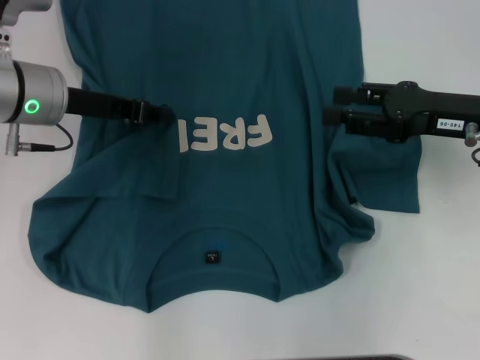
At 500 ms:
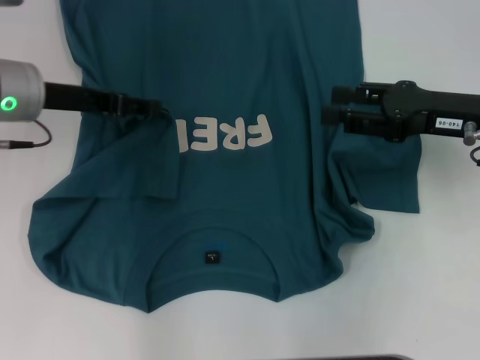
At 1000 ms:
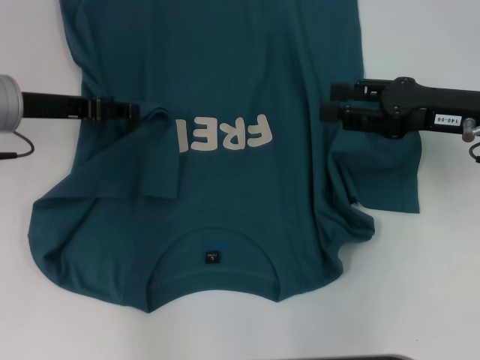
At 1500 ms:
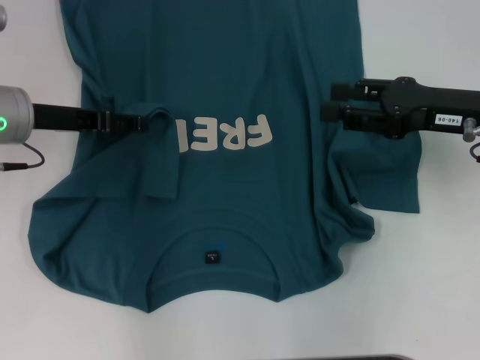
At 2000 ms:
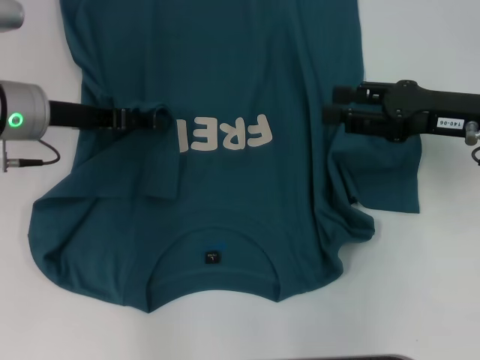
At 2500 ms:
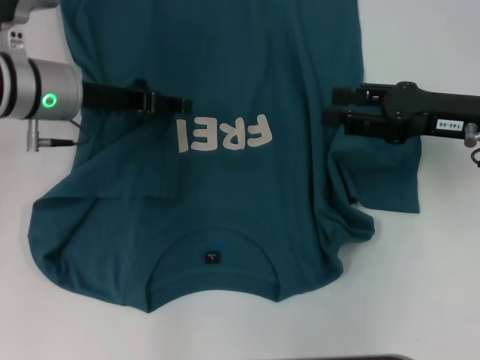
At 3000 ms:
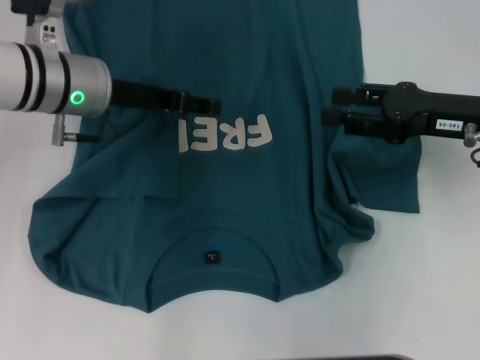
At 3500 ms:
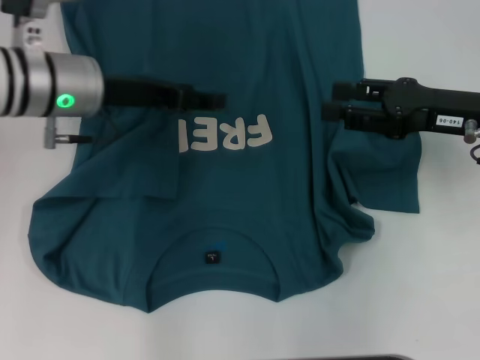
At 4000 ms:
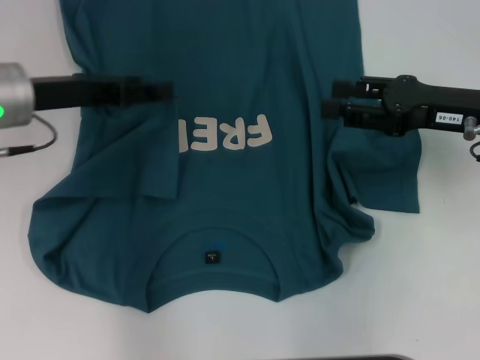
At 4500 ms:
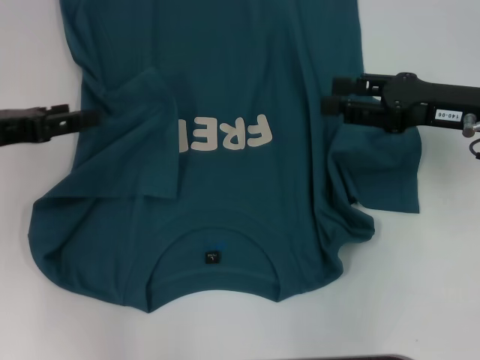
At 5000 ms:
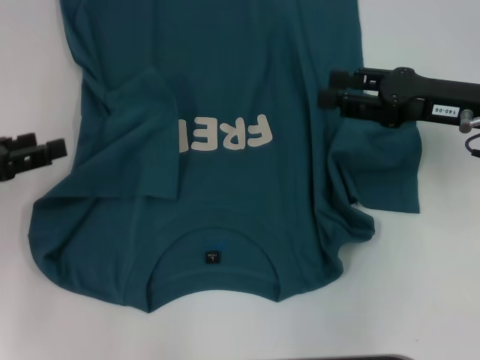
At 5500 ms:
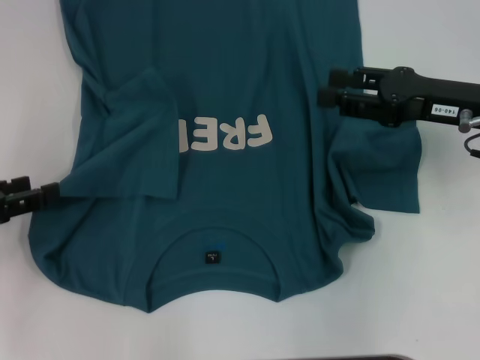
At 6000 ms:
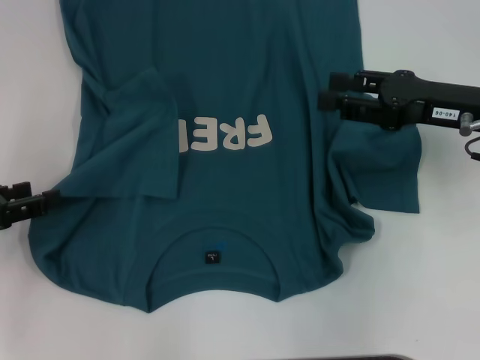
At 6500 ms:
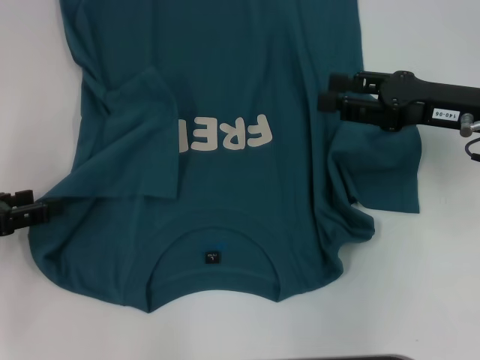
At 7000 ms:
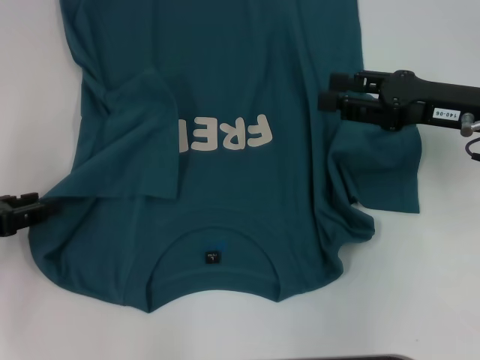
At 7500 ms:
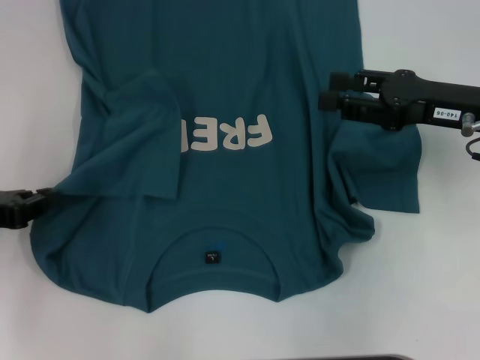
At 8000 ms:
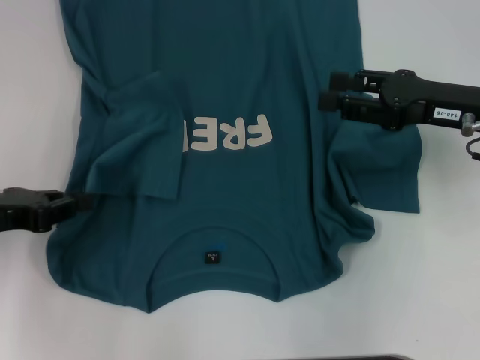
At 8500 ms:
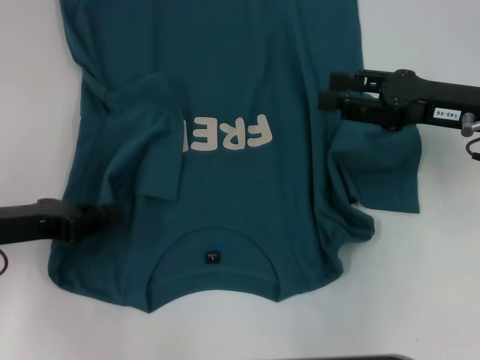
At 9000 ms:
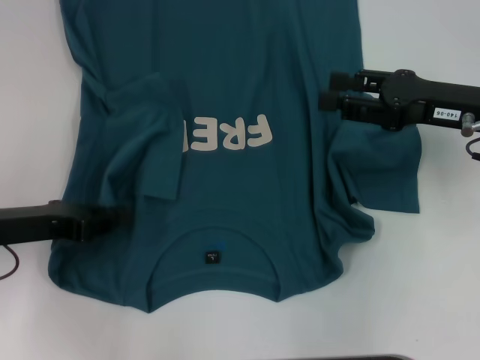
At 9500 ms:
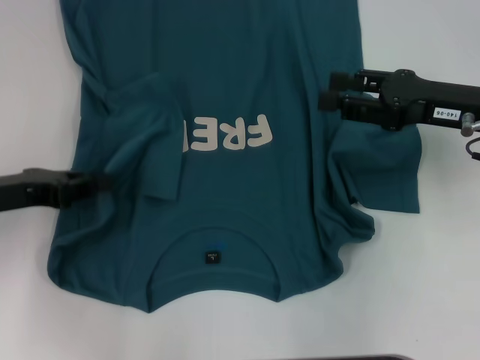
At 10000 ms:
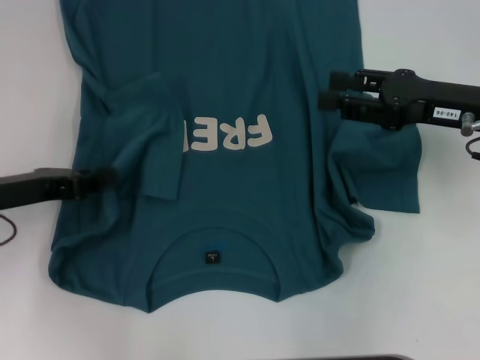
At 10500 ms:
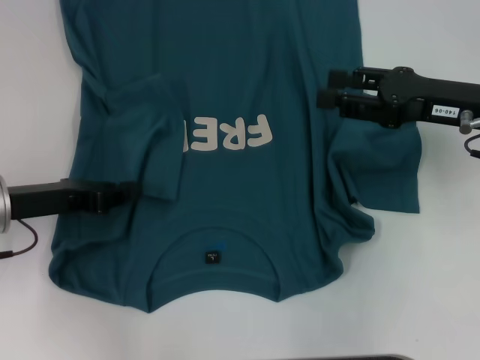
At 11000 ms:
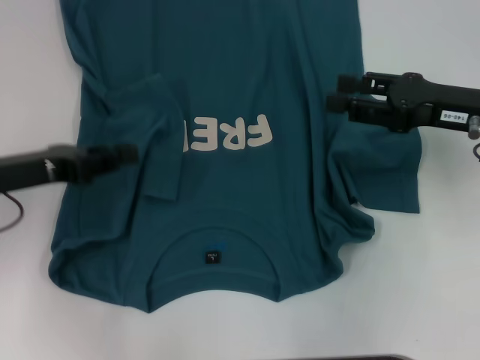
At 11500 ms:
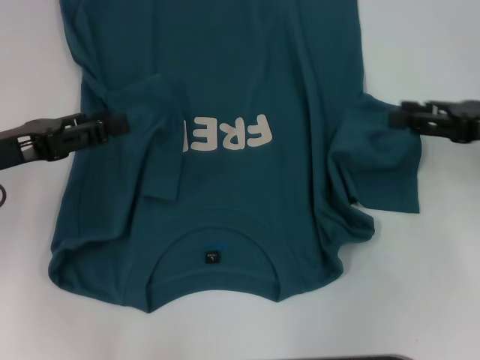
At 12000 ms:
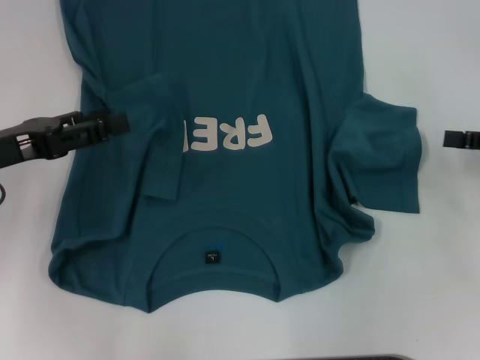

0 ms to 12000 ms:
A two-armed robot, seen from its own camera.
Step, 0 ms to 10500 ms: Fold the bottom left sleeve with your left hand.
0 ms to 2000 ms: The left gripper opens its fingers.
4000 ms to 6000 ms: The left gripper travels backward and to the left by approximately 15 cm.
6000 ms to 8000 ms: The left gripper closes.
8000 ms to 10000 ms: The grippers stay close to where they were, moving slightly.
10000 ms to 12000 ms: The right gripper goes some 10 cm to the right. Meanwhile the left gripper opens its fingers.

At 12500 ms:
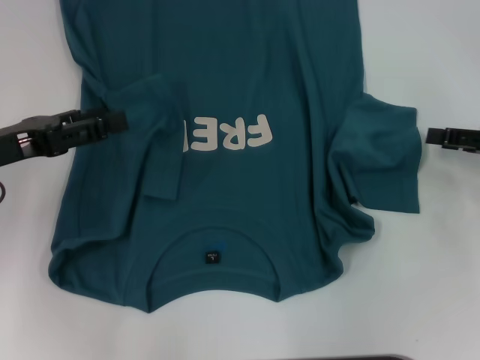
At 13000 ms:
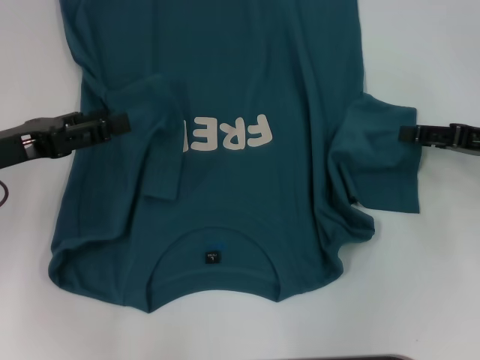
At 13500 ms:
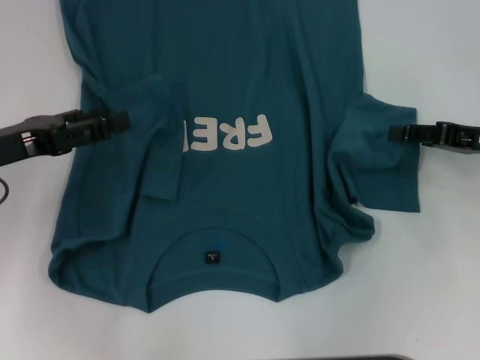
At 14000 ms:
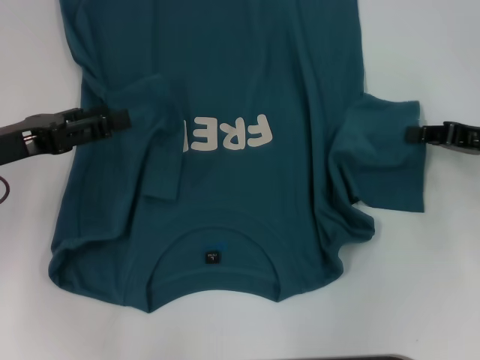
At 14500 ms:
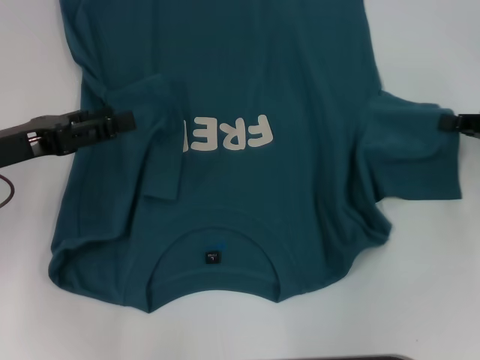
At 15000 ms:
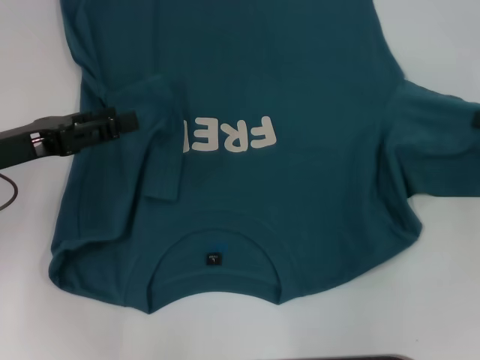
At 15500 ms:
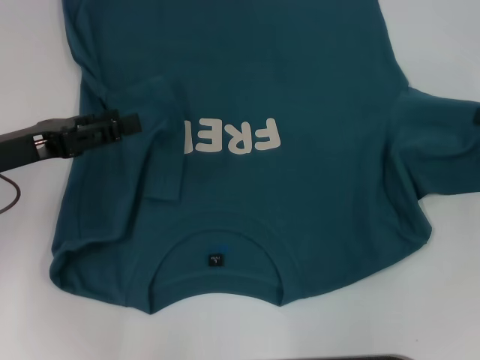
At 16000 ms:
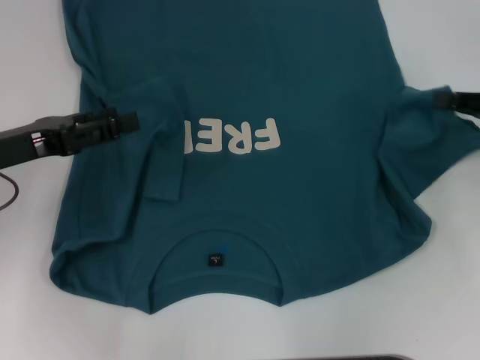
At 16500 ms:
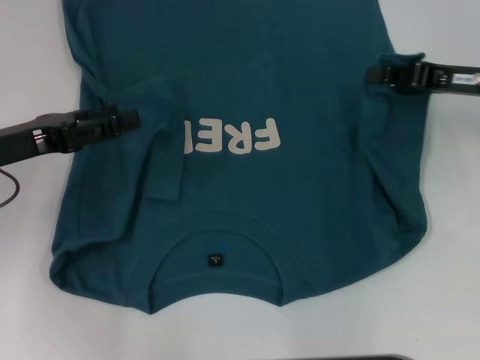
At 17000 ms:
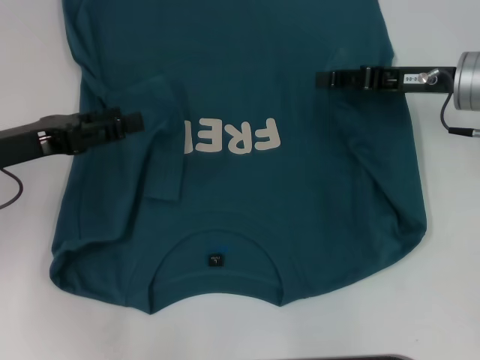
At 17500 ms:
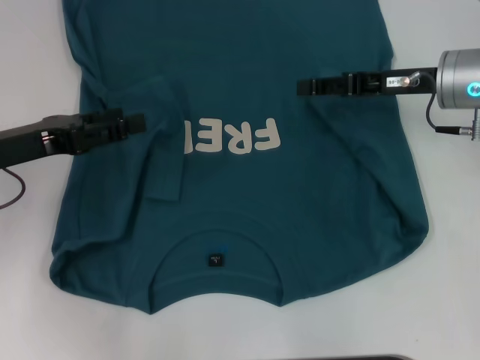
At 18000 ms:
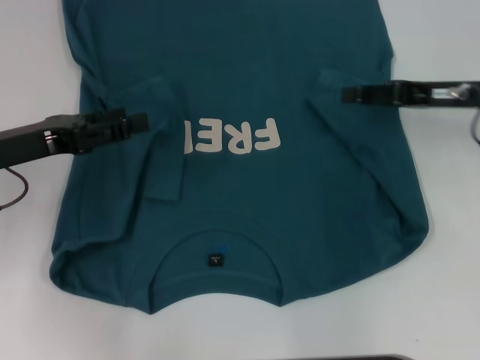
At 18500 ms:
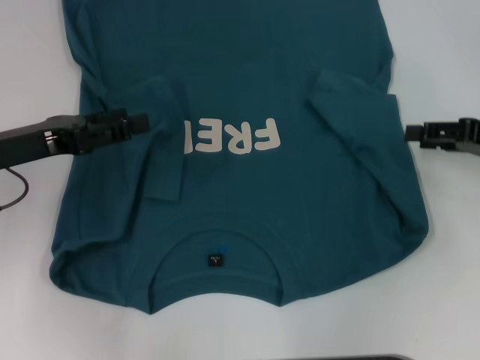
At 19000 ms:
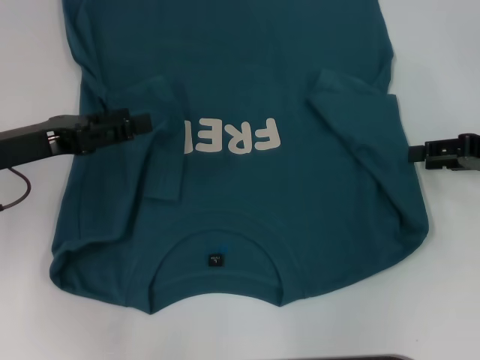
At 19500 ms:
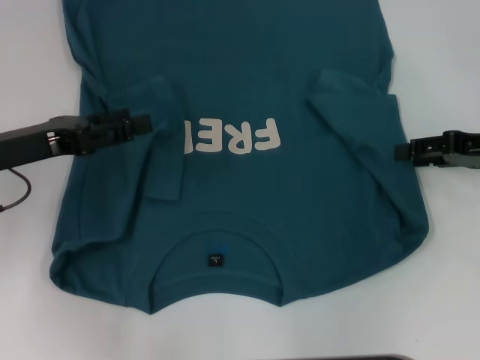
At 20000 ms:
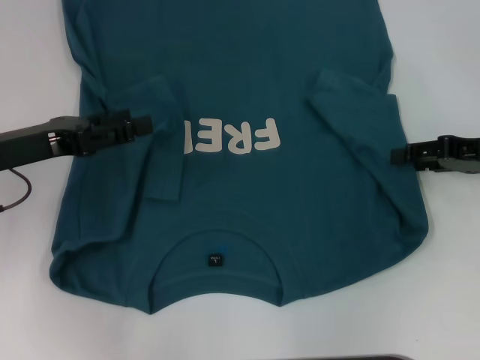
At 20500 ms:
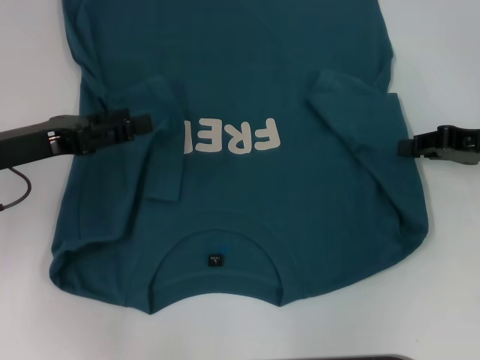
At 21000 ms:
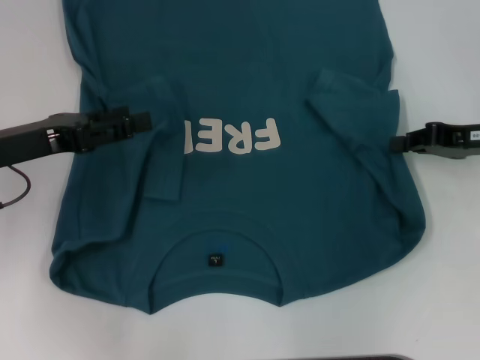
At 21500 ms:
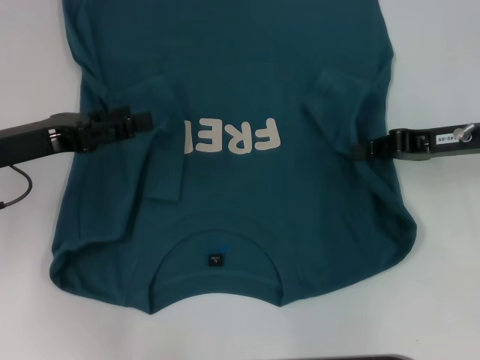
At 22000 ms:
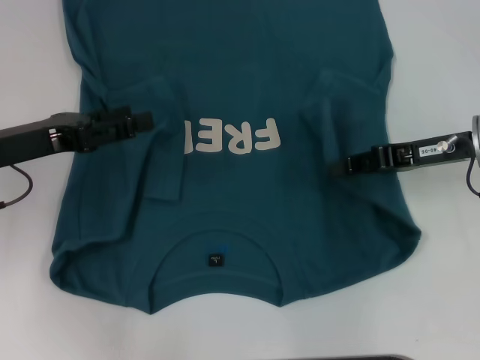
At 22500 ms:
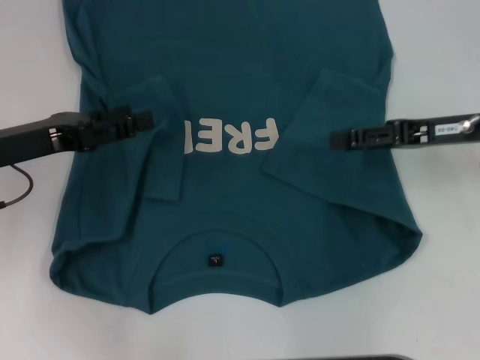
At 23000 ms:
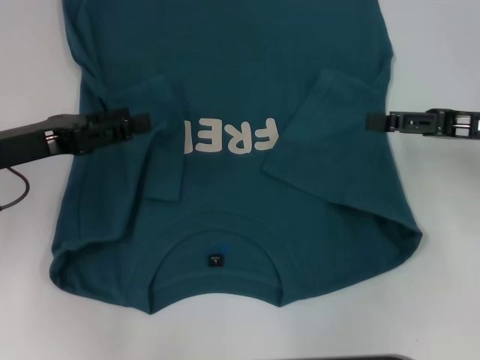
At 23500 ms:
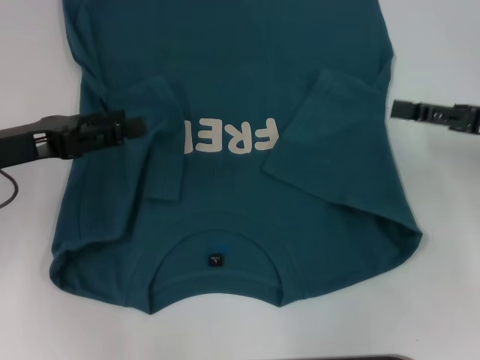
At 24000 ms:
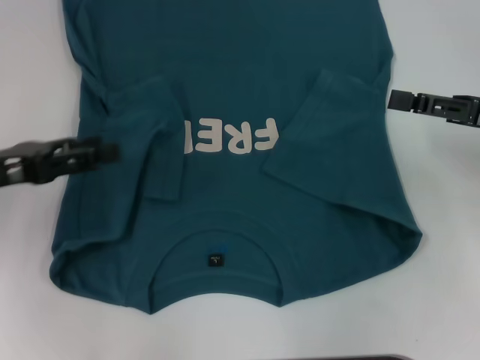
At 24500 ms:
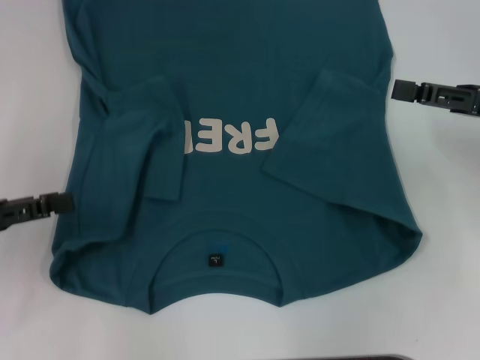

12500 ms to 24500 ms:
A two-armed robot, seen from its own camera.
Step, 12500 ms to 22500 ms: Fold the bottom right sleeve to the right.
12500 ms to 14500 ms: The right gripper closes its fingers.
14500 ms to 16500 ms: The right gripper shifts some 10 cm to the left and forward.
16500 ms to 18500 ms: The right gripper is displaced to the right by about 5 cm, and opens up.
18500 ms to 20500 ms: The grippers stay close to where they were, moving slightly.
20500 ms to 22500 ms: The right gripper shifts about 5 cm to the left, and closes and opens again.
22500 ms to 24500 ms: The left gripper goes some 10 cm to the left and backward. The right gripper changes place by about 5 cm.

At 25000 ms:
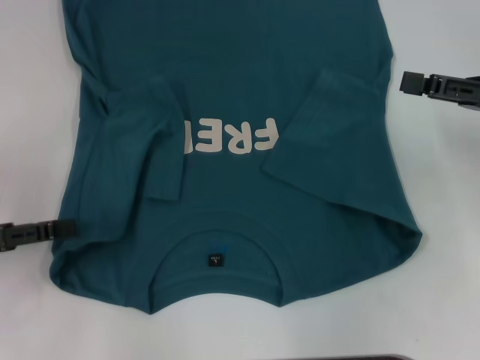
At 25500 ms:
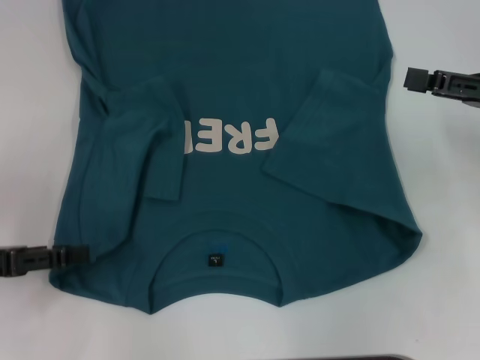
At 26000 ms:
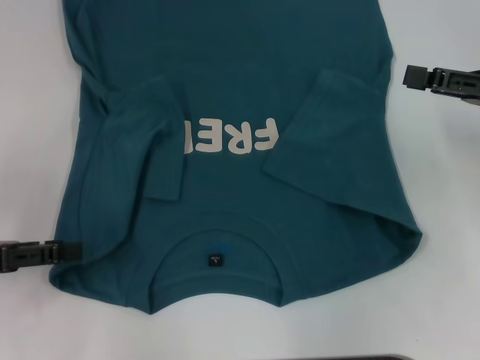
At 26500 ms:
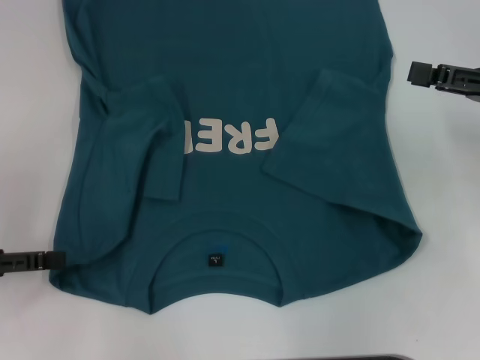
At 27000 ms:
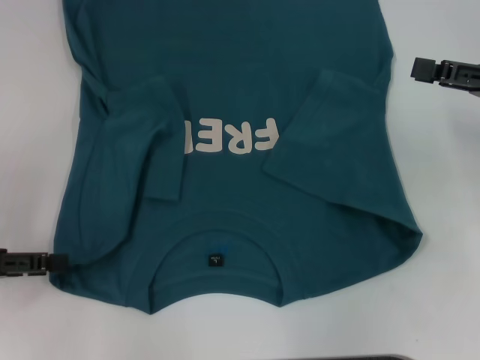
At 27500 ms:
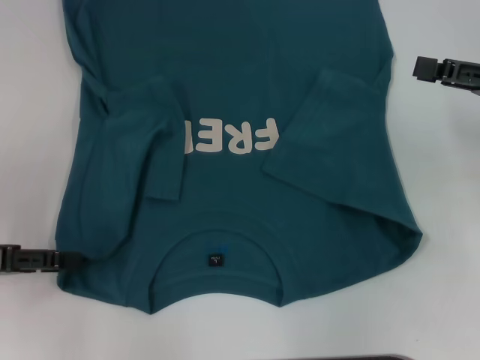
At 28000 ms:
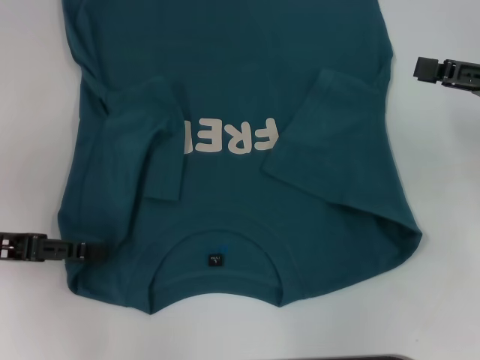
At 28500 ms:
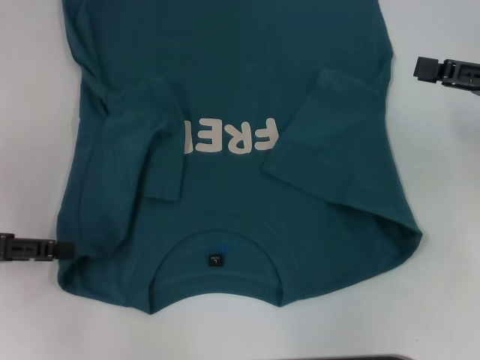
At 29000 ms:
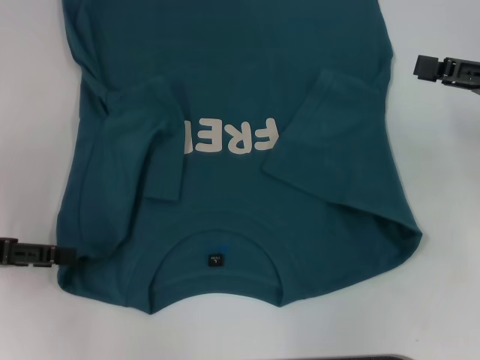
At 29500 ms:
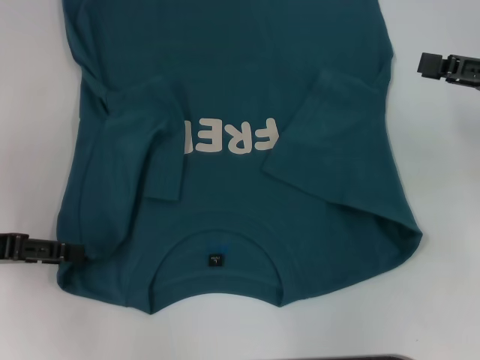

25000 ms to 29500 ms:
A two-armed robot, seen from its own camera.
25000 ms to 29500 ms: The grippers move only a little.
